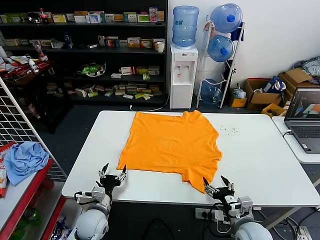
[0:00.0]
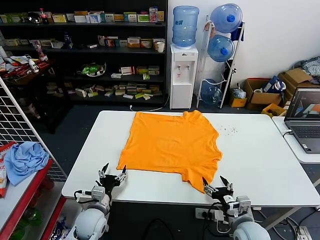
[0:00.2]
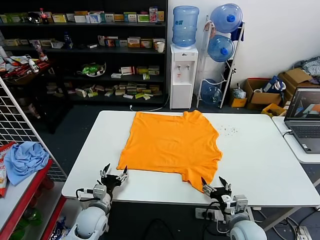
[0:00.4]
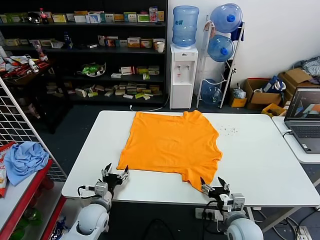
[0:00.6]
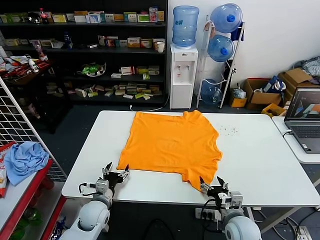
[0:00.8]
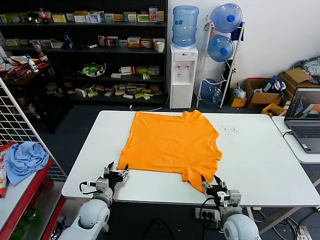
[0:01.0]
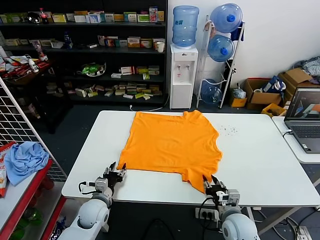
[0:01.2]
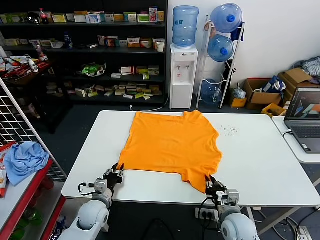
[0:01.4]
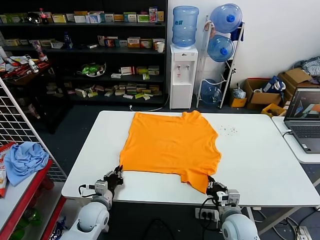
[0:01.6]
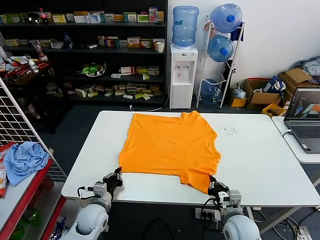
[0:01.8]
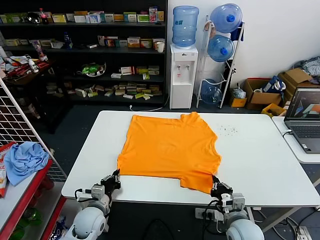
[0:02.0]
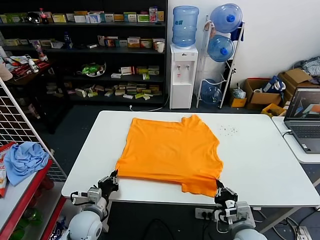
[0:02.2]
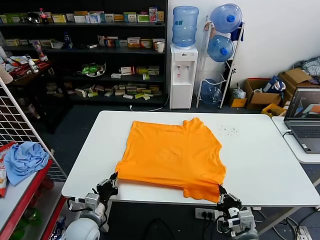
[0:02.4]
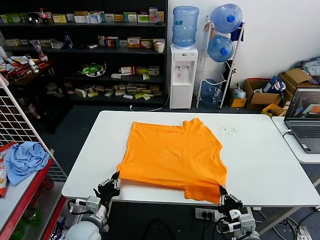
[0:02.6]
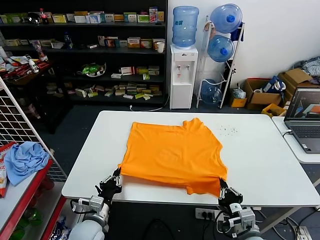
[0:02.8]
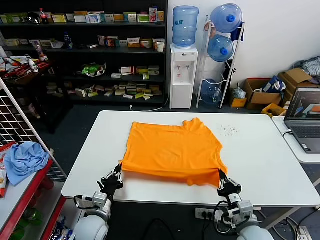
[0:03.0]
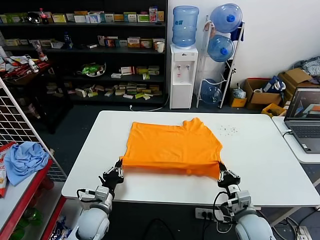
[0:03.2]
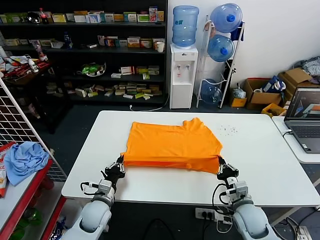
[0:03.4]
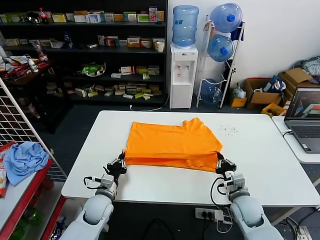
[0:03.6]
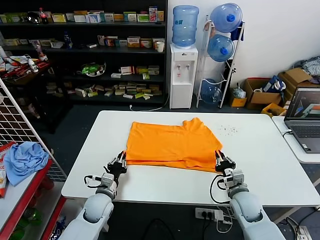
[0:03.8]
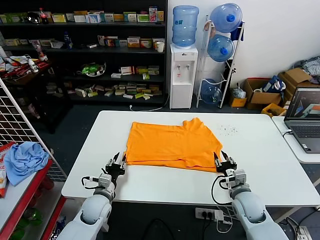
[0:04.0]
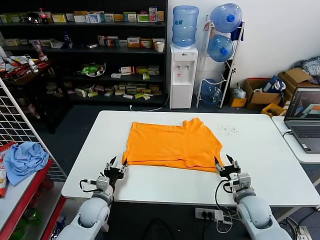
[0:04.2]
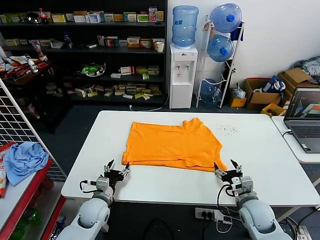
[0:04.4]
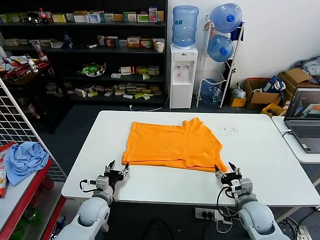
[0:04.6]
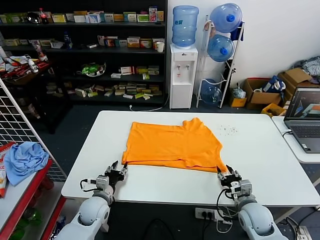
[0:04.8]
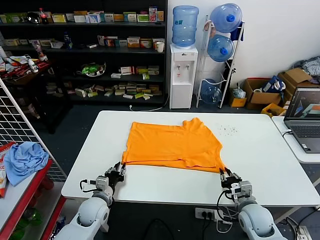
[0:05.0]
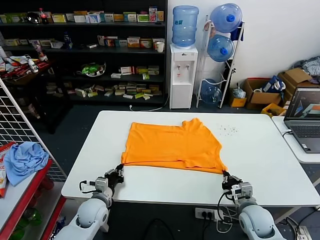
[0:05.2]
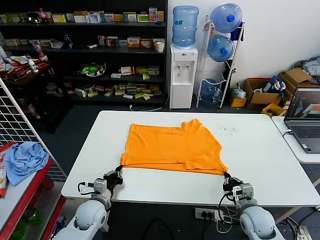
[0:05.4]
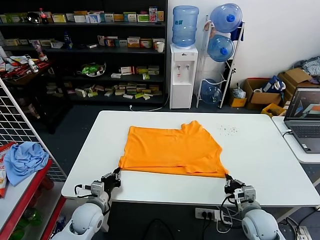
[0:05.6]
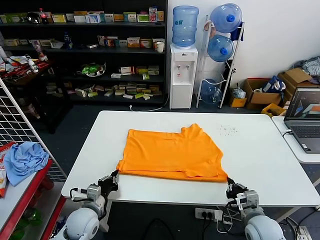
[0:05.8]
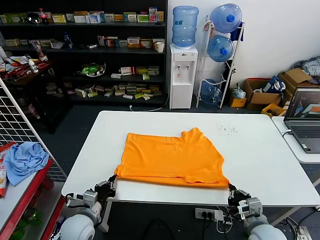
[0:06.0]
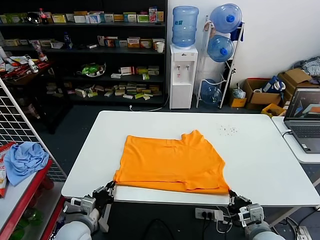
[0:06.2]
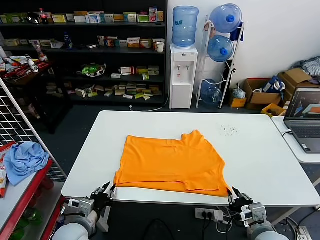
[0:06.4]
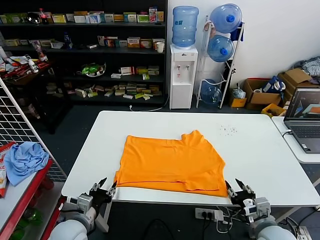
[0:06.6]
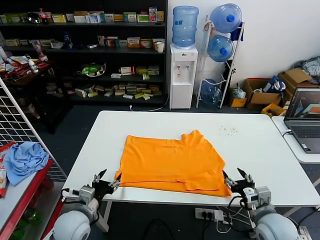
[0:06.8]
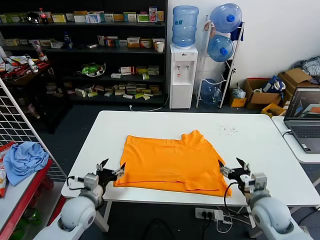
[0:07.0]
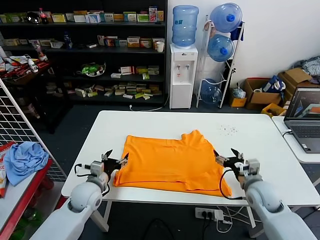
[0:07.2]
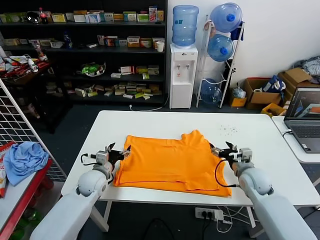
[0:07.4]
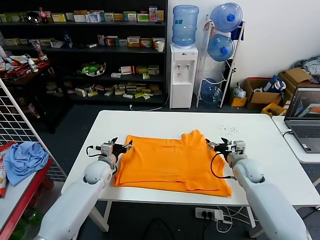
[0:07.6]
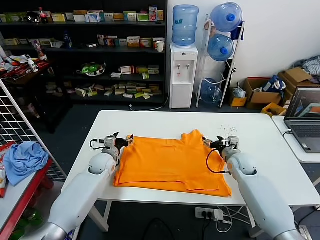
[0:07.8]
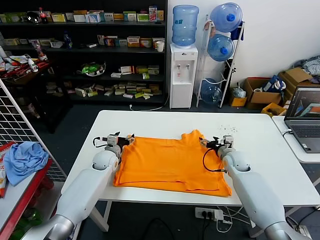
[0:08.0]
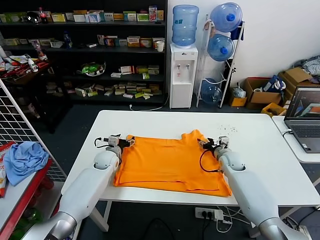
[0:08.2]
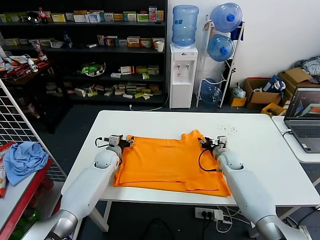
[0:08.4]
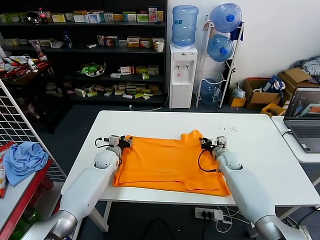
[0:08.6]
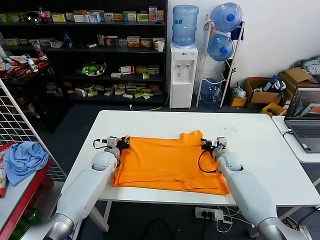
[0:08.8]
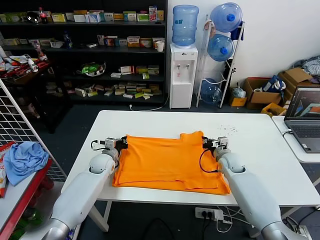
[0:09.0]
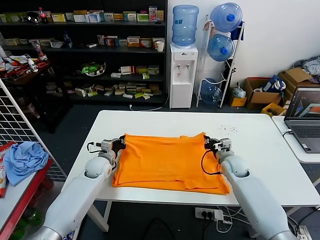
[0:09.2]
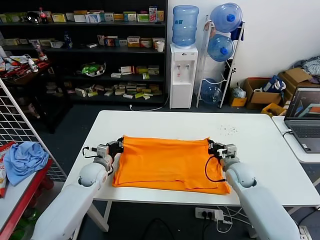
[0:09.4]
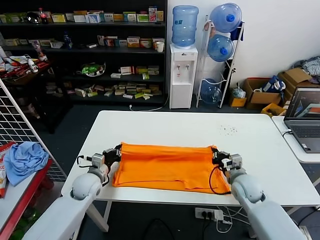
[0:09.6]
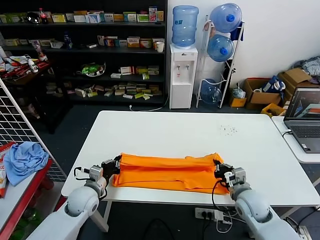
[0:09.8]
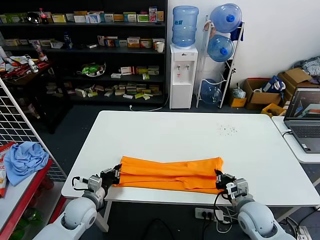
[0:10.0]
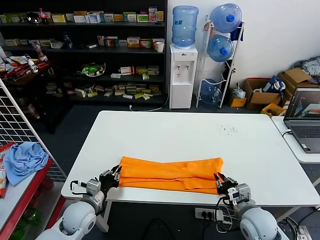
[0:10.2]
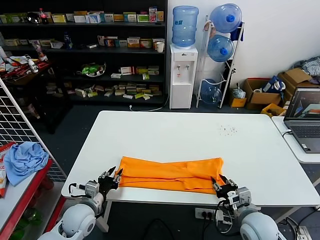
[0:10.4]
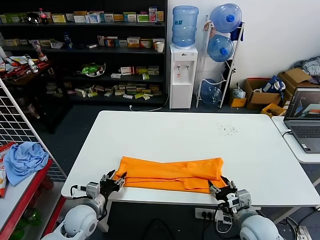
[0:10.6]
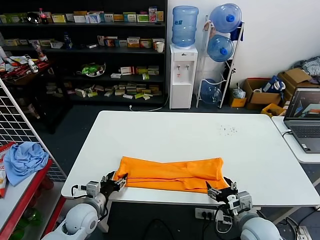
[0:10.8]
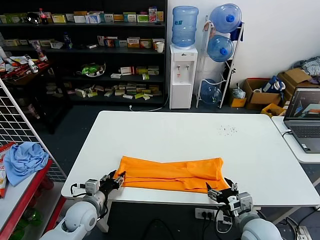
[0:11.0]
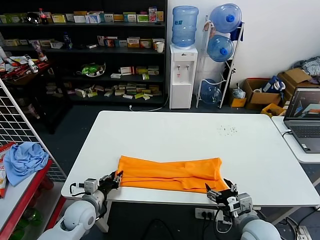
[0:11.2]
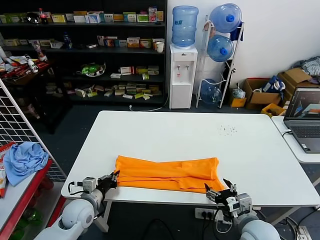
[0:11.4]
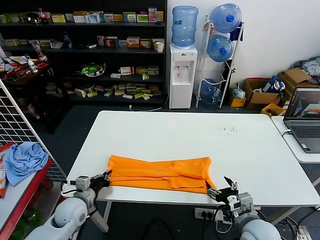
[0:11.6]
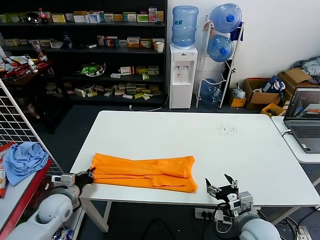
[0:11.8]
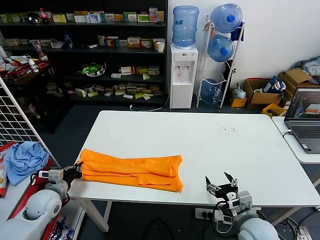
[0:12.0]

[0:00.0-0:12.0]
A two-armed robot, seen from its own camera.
Task of the whole recording: fold and organize the clothes.
Step, 0:00.0 to 0:01.4: use both grippers simultaneously to clamp the lower edge of the clothing fabric.
Step, 0:01.8 to 0:03.8: use both grippers to drag the lower edge of the fabric forward and fold it over the upper edge.
Step, 0:04.0 to 0:06.2: Drag the clothes downward with both gripper.
Step, 0:06.4 to 0:08.8: use both grippers simultaneously to clamp the upper edge of the clothing fabric.
Step, 0:09.2 to 0:10.2: use both grippers to drag the upper edge of the fabric backward and fold it over the lower edge.
Step, 0:10.4 to 0:11.4: use the left gripper to clamp the left edge of the fabric.
0:01.6 to 0:03.0: The right gripper moves roughly 10 cm backward and comes back. The left gripper heads backward, covering about 5 cm.
0:03.0 to 0:04.4: Both grippers move forward, approximately 5 cm. The left gripper opens; the right gripper opens up.
0:04.4 to 0:06.0: Both grippers travel together backward, some 10 cm. The right gripper closes its fingers. The left gripper closes.
0:06.0 to 0:07.6: The grippers both shift forward by roughly 20 cm. The right gripper opens up; the left gripper opens.
0:07.6 to 0:09.0: The right gripper ends up approximately 5 cm from where it was, and closes up. The left gripper goes roughly 5 cm forward, and closes.
0:09.0 to 0:10.4: The grippers both shift backward by about 25 cm. The left gripper opens its fingers. The right gripper opens its fingers.
0:10.4 to 0:12.0: The left gripper moves to the left, about 10 cm, and closes its fingers. Meanwhile the right gripper opens.

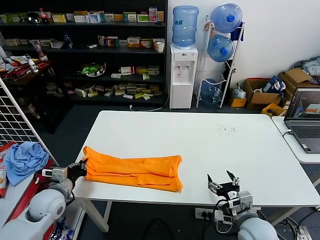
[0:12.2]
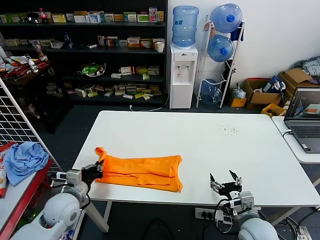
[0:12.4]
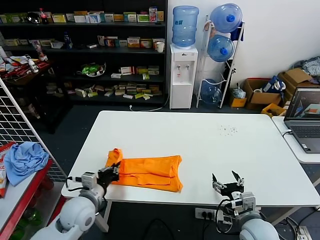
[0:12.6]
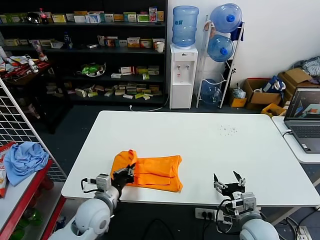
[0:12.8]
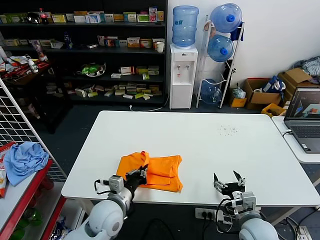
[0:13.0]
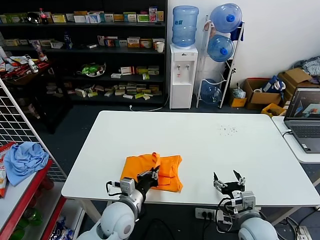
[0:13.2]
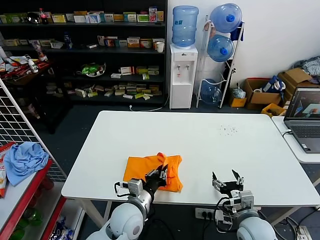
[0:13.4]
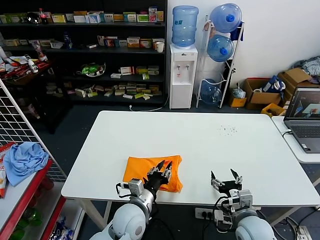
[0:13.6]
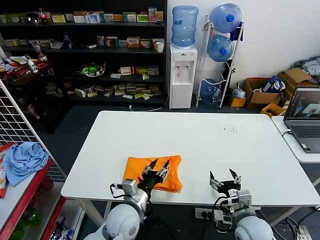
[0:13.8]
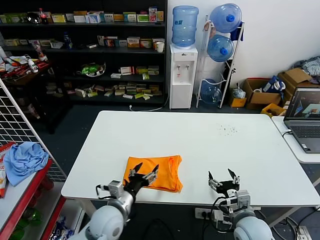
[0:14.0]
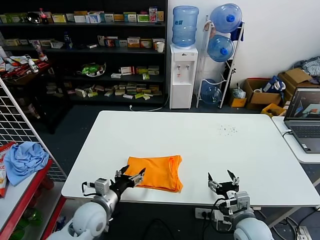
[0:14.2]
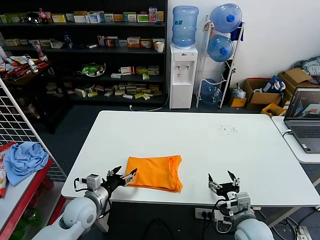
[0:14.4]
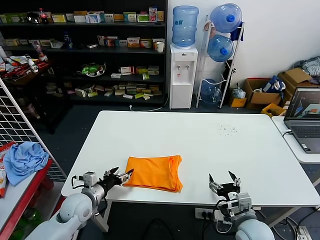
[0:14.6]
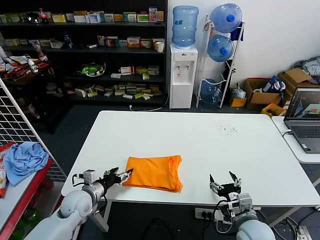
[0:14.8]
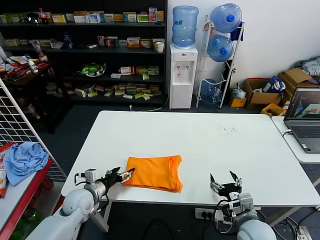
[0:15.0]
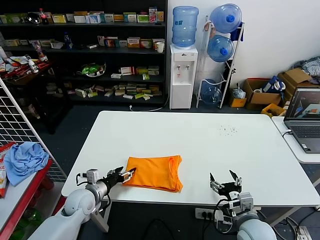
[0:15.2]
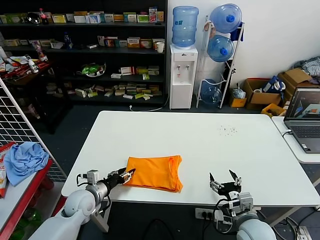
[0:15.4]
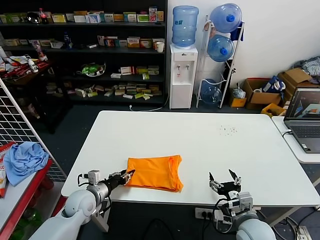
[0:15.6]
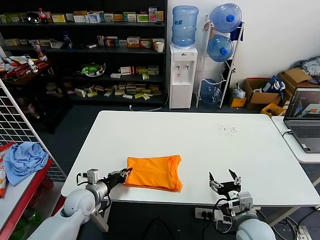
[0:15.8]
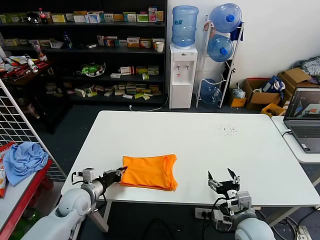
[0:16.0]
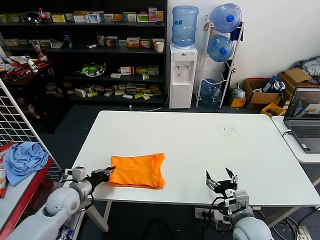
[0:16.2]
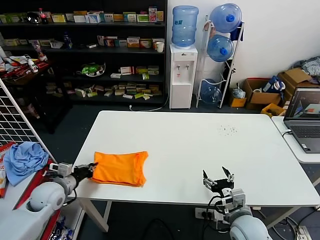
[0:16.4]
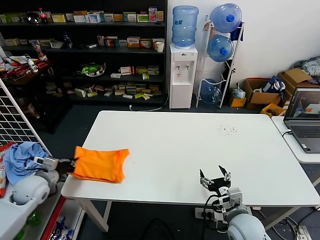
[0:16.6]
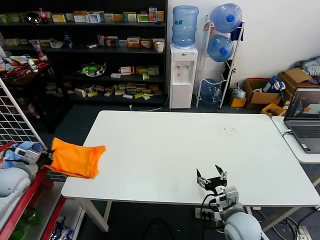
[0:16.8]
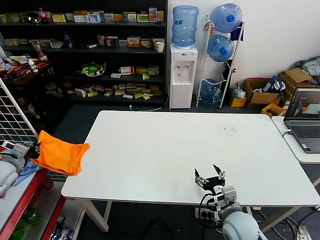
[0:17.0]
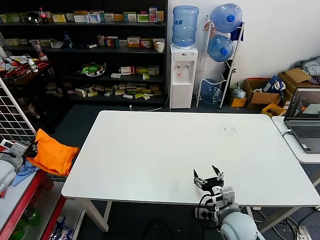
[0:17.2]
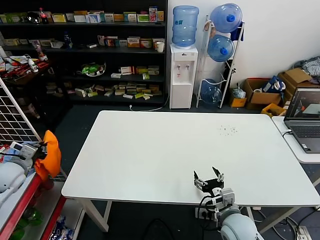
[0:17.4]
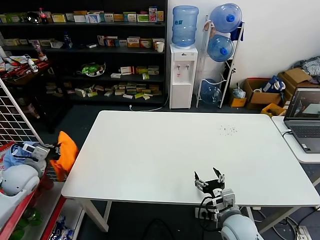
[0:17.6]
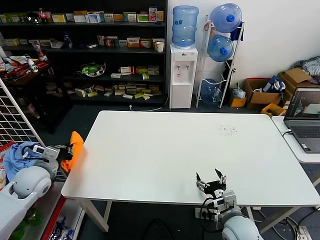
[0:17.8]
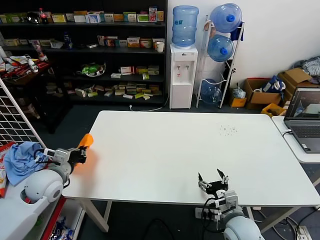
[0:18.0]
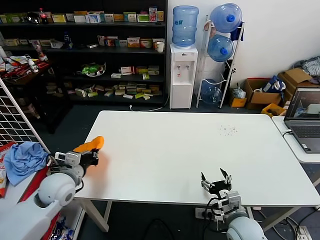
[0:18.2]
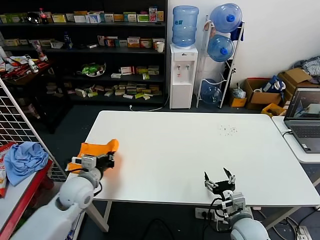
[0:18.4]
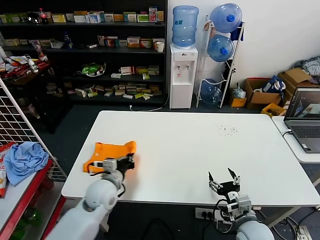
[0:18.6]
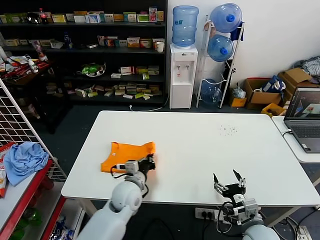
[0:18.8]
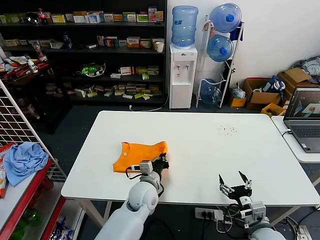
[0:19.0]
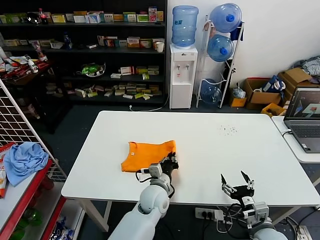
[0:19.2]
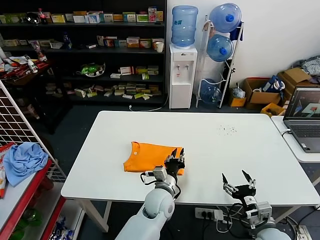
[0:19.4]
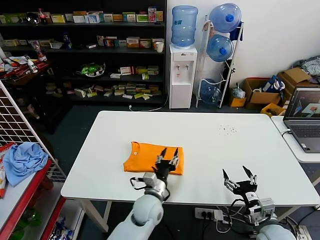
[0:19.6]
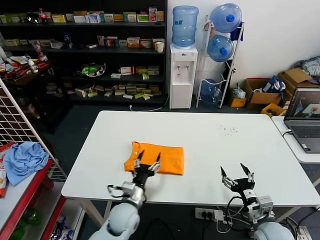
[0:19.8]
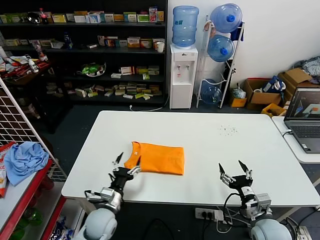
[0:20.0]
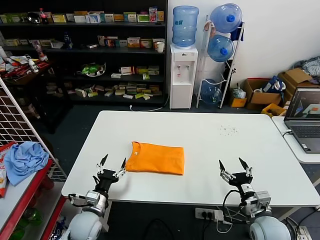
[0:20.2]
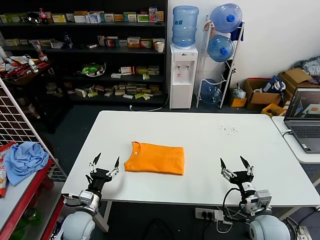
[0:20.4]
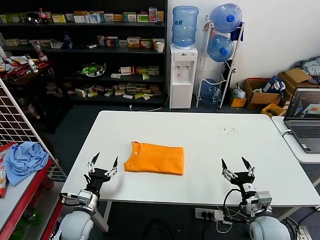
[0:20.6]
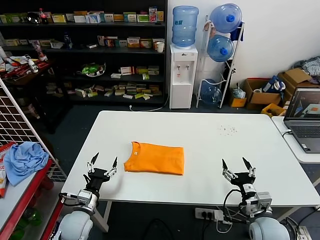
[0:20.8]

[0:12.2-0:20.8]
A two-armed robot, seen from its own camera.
Task of the whole recording: fold and organize the clothes.
Step, 0:12.2 to 0:13.4: use the left gripper to drag the left edge of the fabric to the left and folds it over the right edge.
Step, 0:13.6 to 0:19.2: Flip the folded clothes over with left gripper.
0:12.2 to 0:13.6: The left gripper goes about 25 cm to the right, and opens.
0:13.6 to 0:15.0: The left gripper moves to the left, some 20 cm, and opens its fingers.
0:15.0 to 0:16.6: The left gripper moves to the left and upward, approximately 15 cm, and closes its fingers.
0:16.6 to 0:18.0: The left gripper shifts about 5 cm upward, and goes to the left and returns, roughly 10 cm each way.
0:18.0 to 0:19.4: The right gripper travels to the right by roughly 10 cm. Meanwhile the left gripper goes some 35 cm to the right.
0:19.4 to 0:20.8: The left gripper heads to the left, covering roughly 25 cm, and opens.
